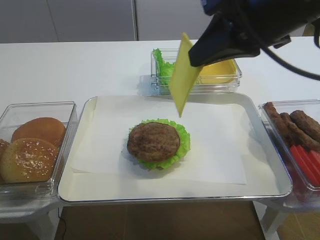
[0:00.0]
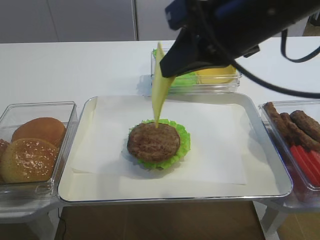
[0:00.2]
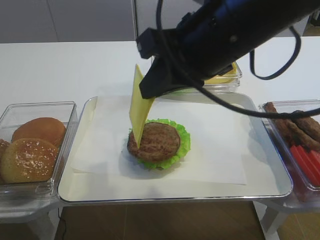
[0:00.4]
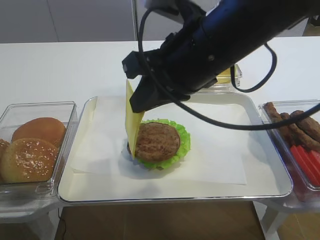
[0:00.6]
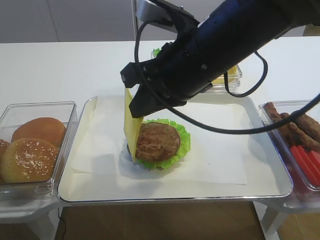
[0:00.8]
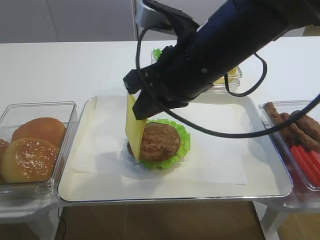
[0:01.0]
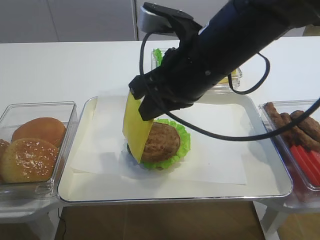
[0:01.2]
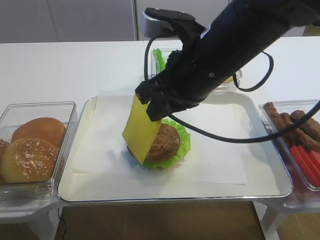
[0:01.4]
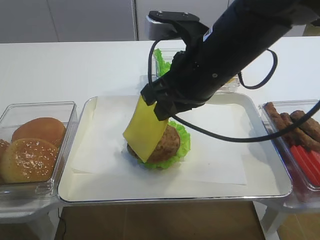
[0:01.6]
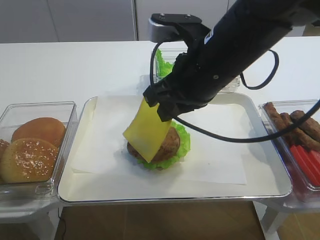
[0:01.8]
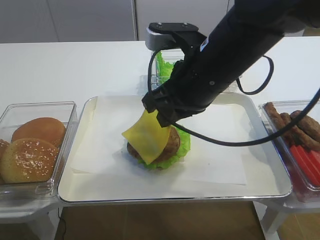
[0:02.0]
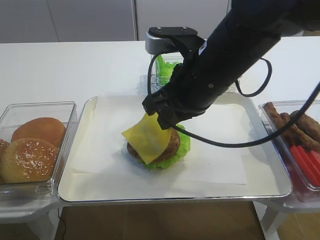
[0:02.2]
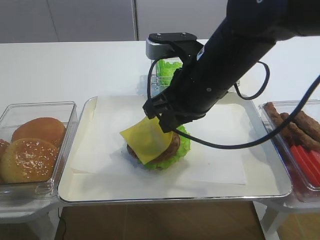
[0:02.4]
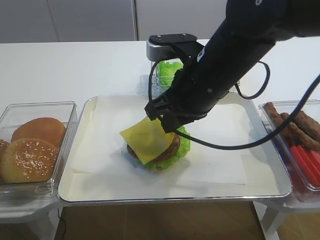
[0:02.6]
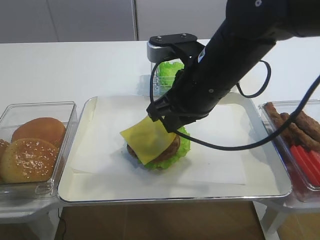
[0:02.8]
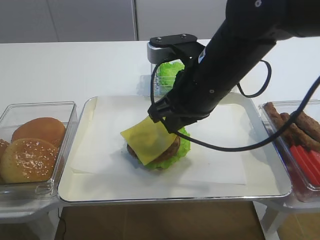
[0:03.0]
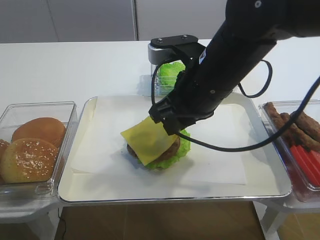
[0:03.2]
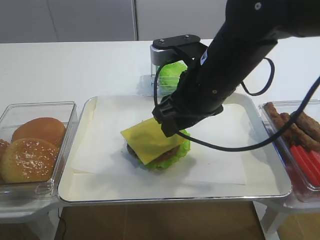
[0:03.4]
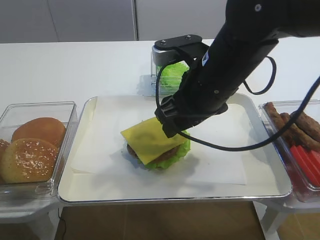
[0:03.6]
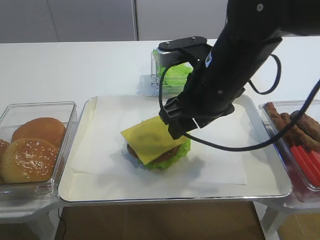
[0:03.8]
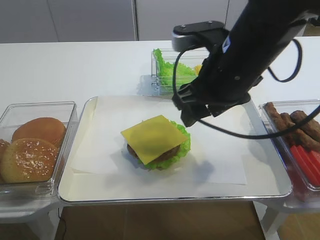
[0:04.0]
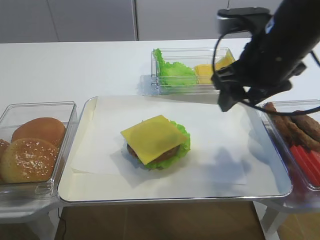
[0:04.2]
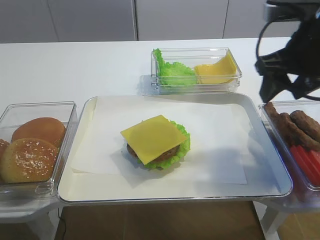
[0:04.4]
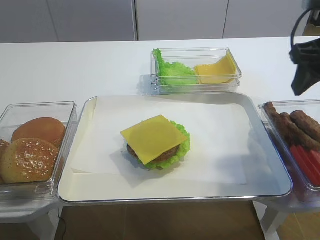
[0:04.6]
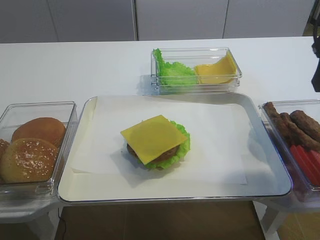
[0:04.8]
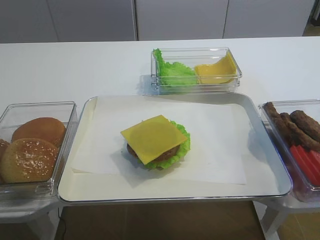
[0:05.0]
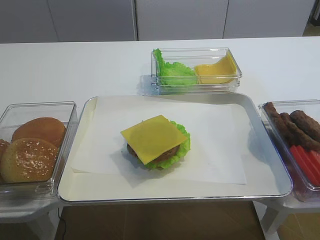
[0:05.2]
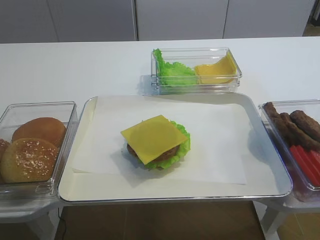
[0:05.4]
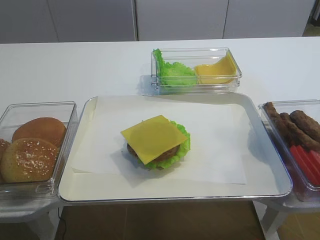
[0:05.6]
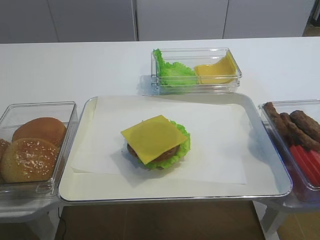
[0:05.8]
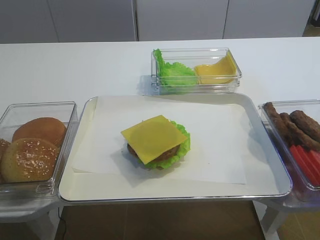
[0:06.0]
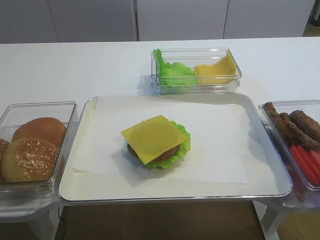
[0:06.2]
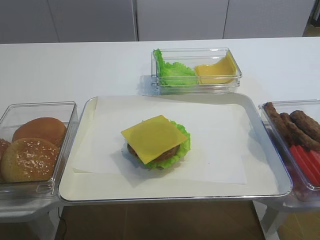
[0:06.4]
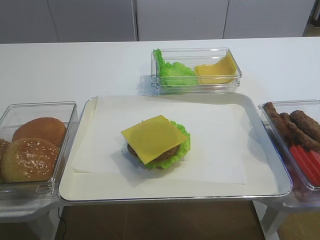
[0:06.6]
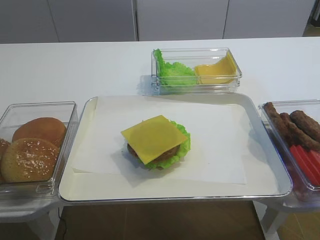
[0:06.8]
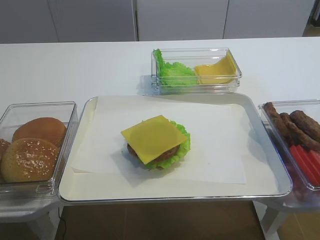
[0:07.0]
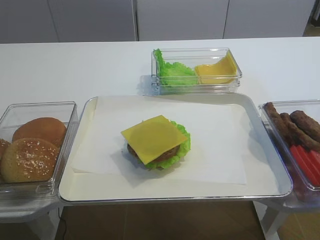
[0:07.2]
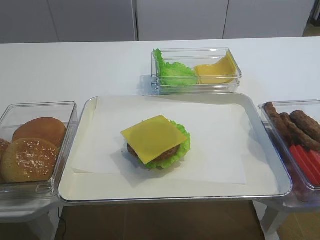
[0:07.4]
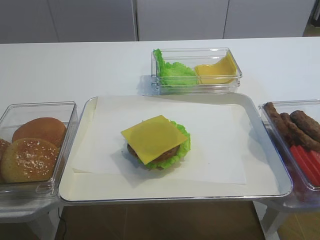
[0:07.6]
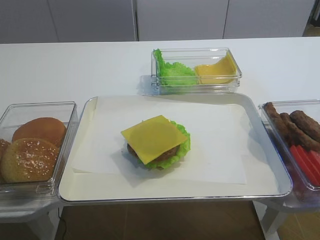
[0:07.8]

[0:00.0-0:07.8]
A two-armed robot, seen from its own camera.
Step, 0:00.0 to 0:03.8: Place the cheese slice on the cutlet with the right gripper.
0:00.0 to 0:01.6: The right gripper is displaced downward and to the left by approximately 10 cm.
0:01.6 to 0:03.2: The grippers stay close to where they were, moving slightly.
0:03.2 to 0:04.6: The right gripper travels to the right by about 15 cm, and opens its fingers.
0:04.6 to 0:06.2: The right gripper moves backward, some 30 cm.

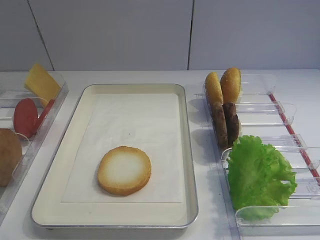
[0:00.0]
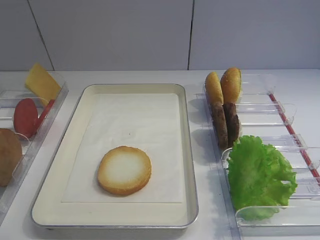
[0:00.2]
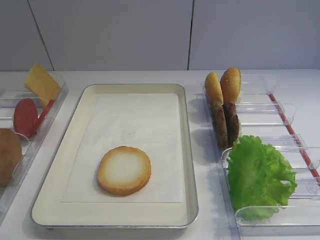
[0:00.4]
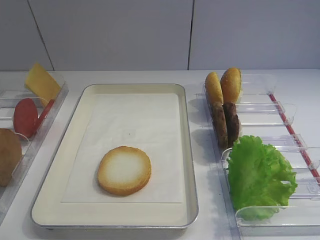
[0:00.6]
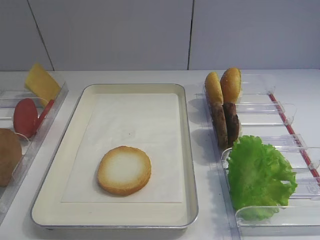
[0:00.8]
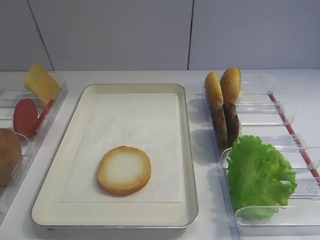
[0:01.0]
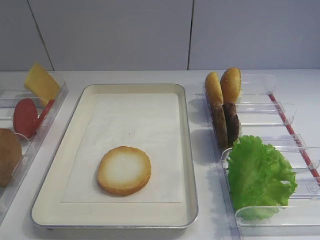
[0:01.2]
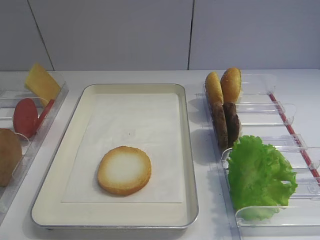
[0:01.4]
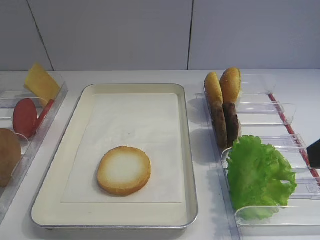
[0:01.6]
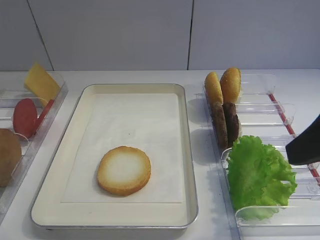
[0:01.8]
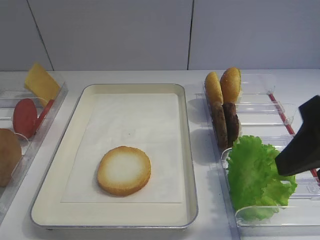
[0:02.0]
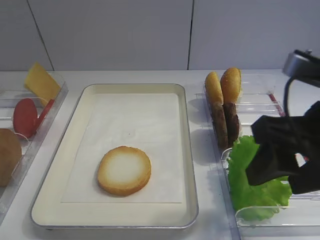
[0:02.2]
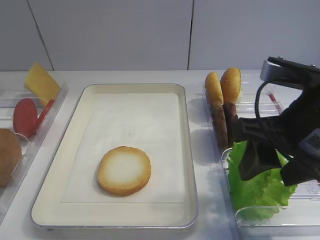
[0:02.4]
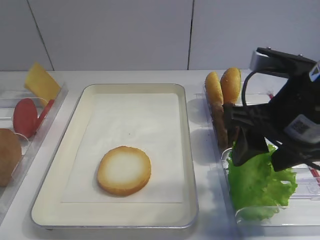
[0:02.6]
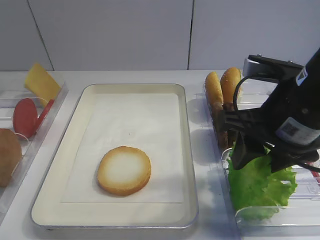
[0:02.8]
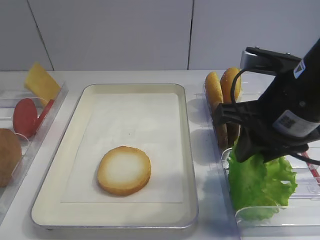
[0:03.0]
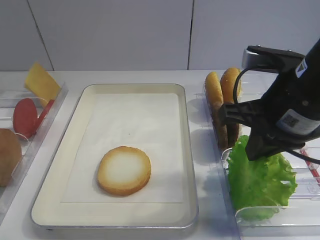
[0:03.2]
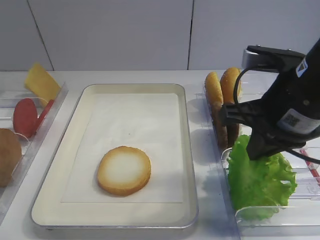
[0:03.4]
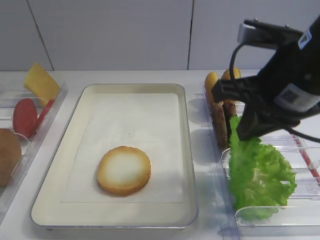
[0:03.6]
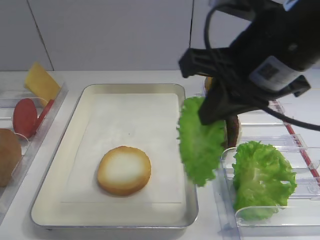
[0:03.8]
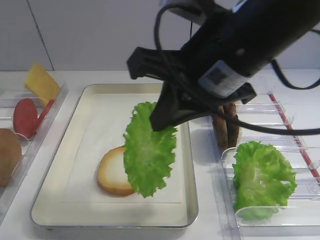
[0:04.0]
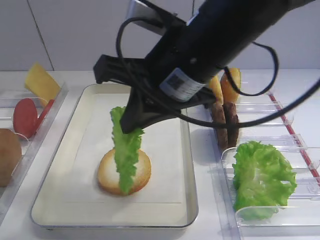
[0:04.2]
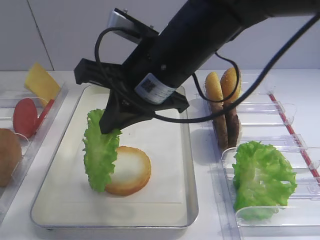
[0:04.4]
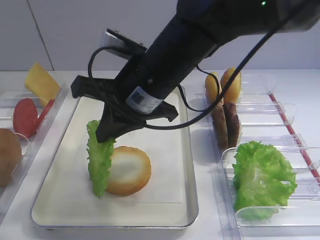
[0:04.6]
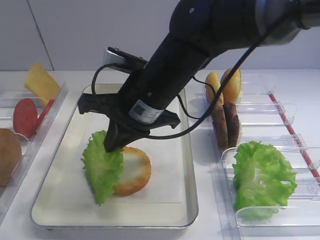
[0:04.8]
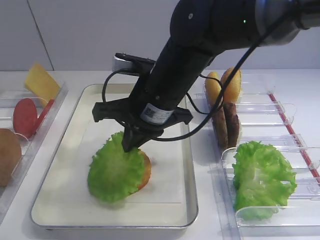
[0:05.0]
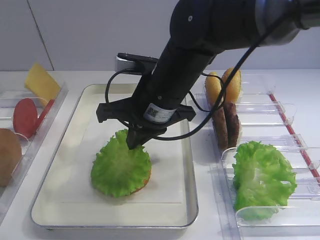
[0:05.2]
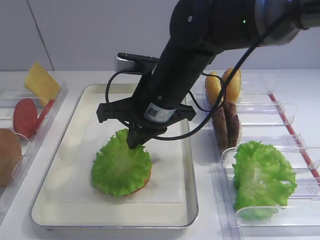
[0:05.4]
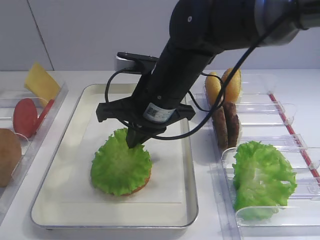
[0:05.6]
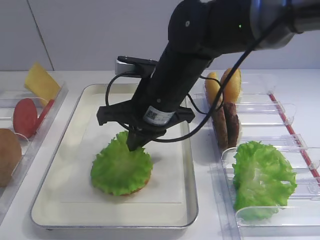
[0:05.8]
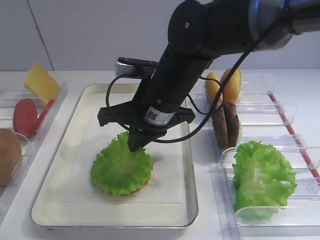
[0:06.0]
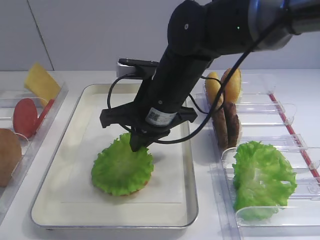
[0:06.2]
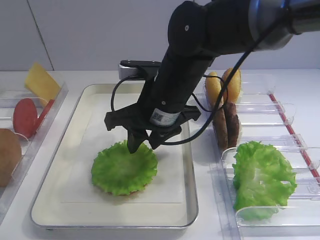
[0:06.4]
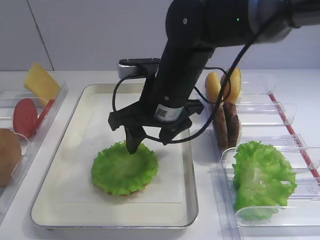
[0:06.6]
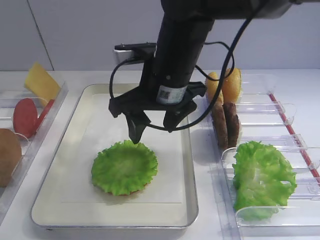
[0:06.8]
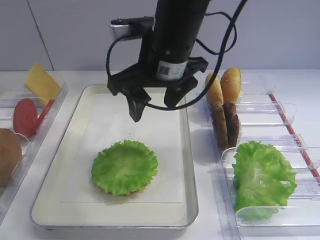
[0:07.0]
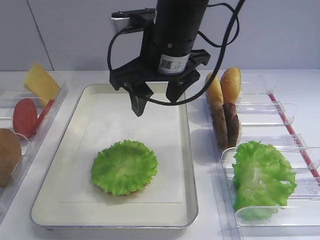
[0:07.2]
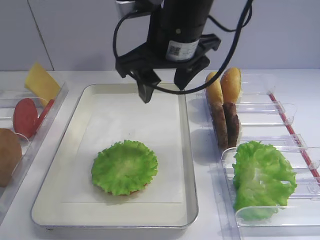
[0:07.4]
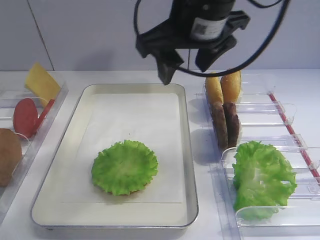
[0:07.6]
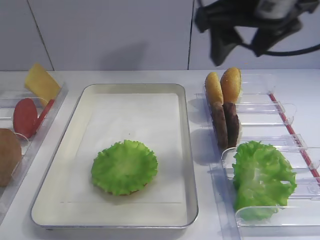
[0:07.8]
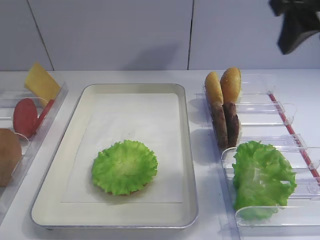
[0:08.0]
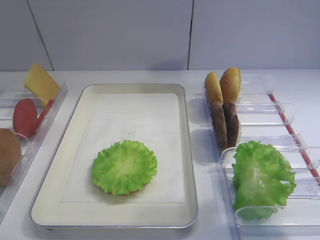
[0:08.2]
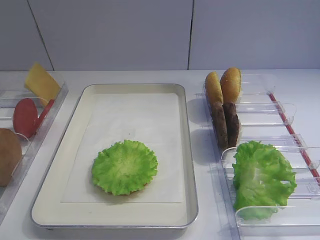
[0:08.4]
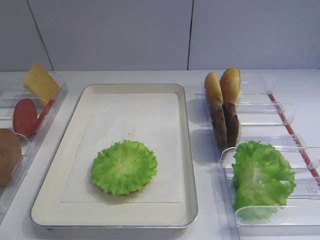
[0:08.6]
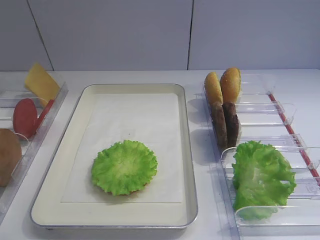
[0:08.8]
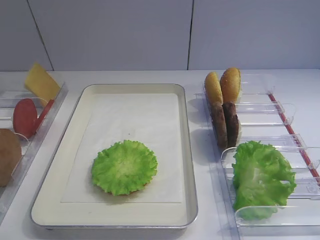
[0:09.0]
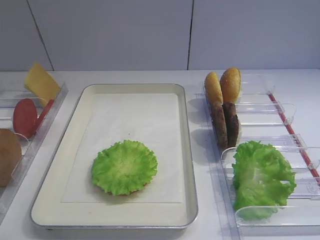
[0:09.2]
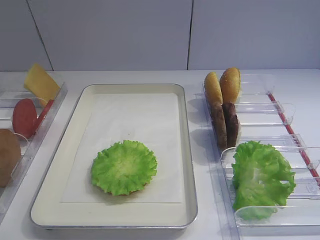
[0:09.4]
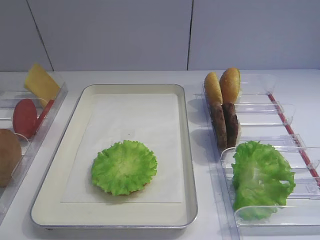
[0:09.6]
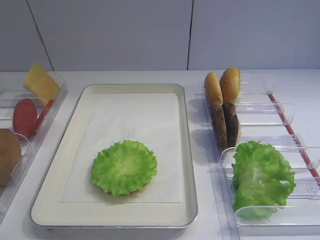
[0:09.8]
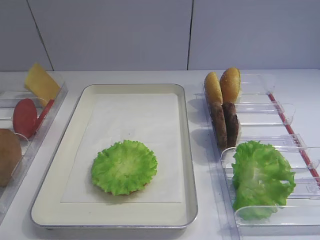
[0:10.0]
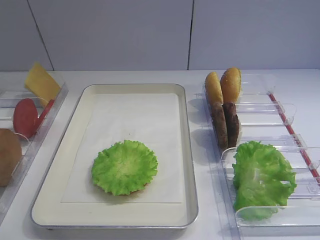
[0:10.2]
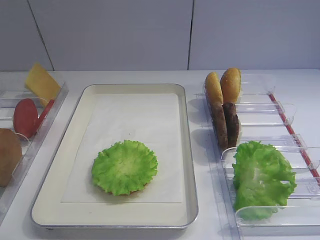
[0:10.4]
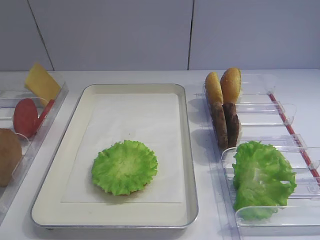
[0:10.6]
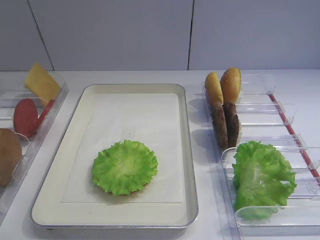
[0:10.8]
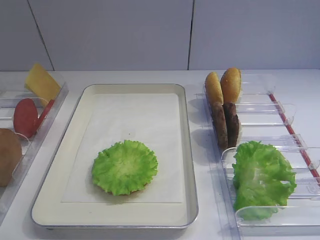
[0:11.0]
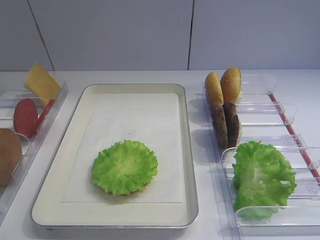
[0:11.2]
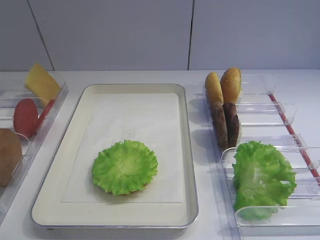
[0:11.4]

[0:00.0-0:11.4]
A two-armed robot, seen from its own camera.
Step, 0:00.0 to 0:03.6: Pick up the lettuce leaf with the right gripper.
Step, 0:03.8 to 0:06.6: Place the lettuce leaf on the bread slice with the right gripper.
0:01.4 to 0:02.8: The right gripper heads forward, to the left and downward, covering about 15 cm.
0:02.8 to 0:04.2: The right gripper shifts some 15 cm to the left and upward, and closes up.
0:04.2 to 0:05.6: The right gripper travels downward and forward by roughly 10 cm.
0:05.6 to 0:07.2: The right gripper goes some 5 cm upward, and opens.
0:07.2 to 0:08.6: The right gripper is displaced to the right and backward by roughly 35 cm.
0:10.0 to 0:11.4: Both grippers stay put.

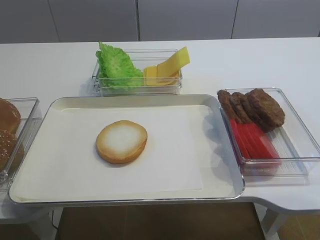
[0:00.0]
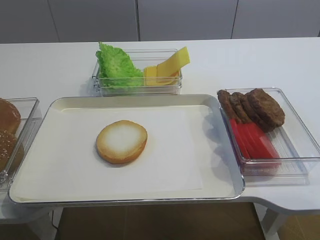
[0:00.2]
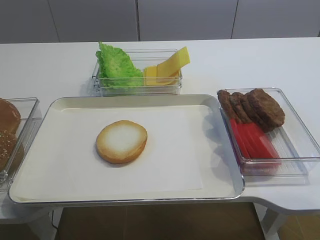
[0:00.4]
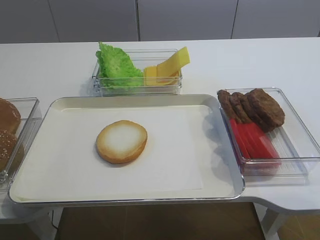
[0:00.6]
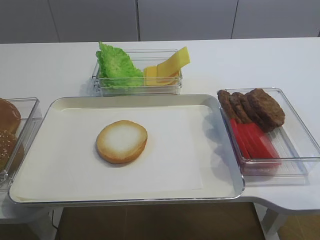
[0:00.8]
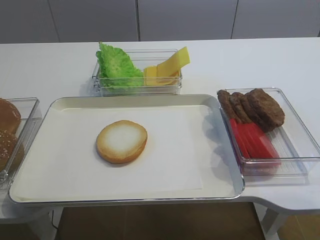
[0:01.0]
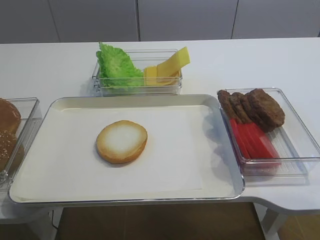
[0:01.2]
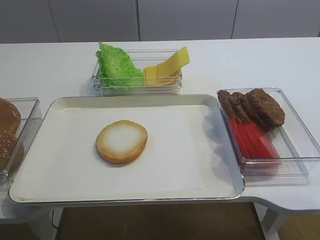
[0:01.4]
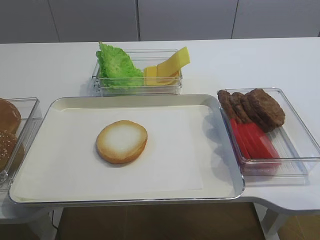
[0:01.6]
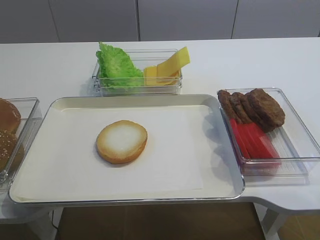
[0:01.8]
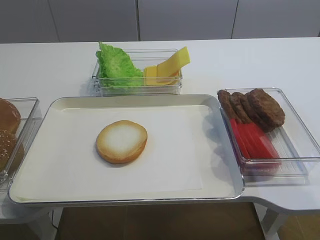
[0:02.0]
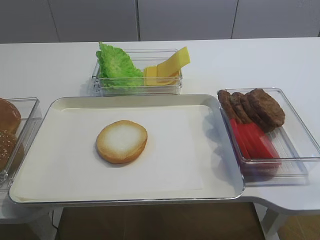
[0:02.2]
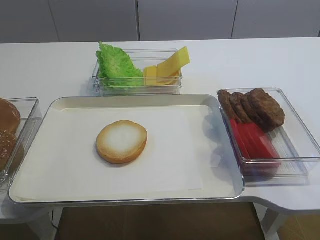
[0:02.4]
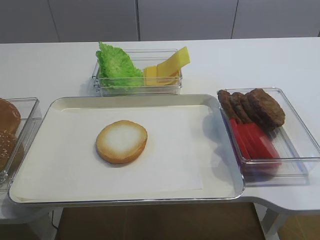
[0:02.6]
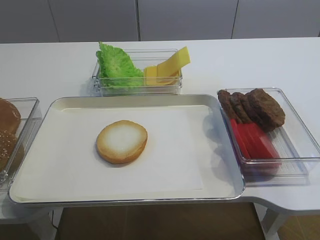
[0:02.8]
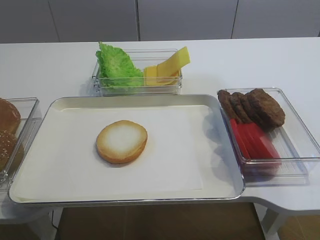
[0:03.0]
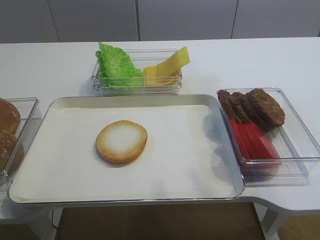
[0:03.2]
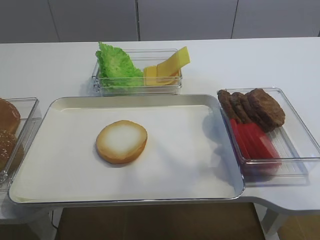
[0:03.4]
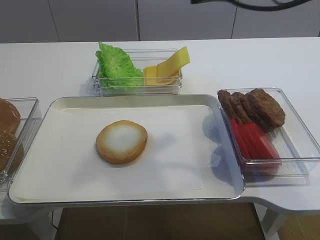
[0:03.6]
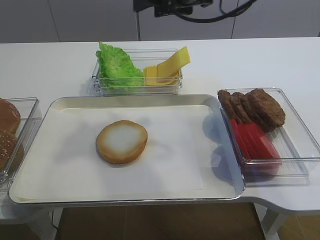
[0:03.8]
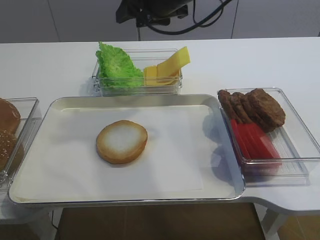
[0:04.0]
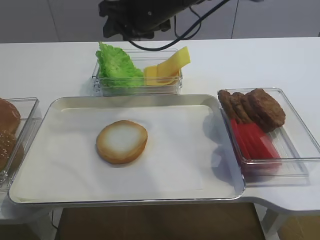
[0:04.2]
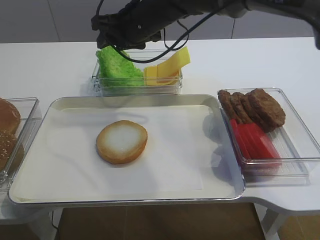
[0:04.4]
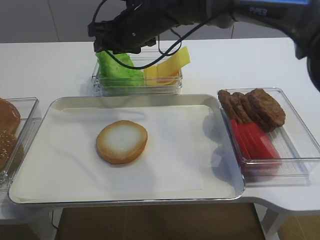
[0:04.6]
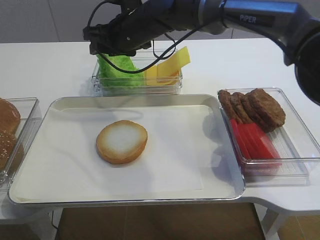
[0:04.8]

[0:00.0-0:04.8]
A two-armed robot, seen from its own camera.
0:01.6 to 0:03.2: The right gripper travels forward and upward by about 25 cm.
0:03.2 to 0:04.8: The right gripper travels to the left, forward and downward by about 40 cm.
